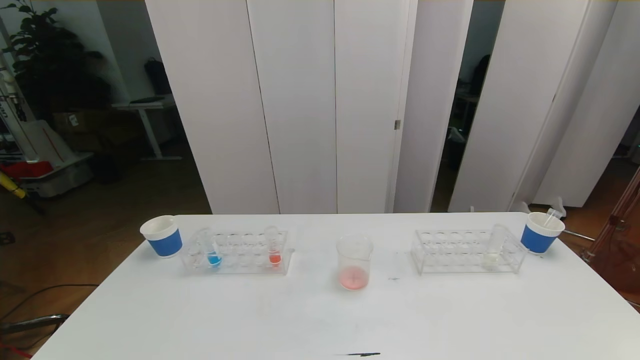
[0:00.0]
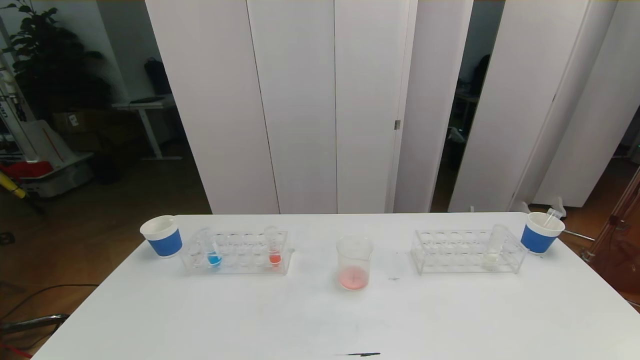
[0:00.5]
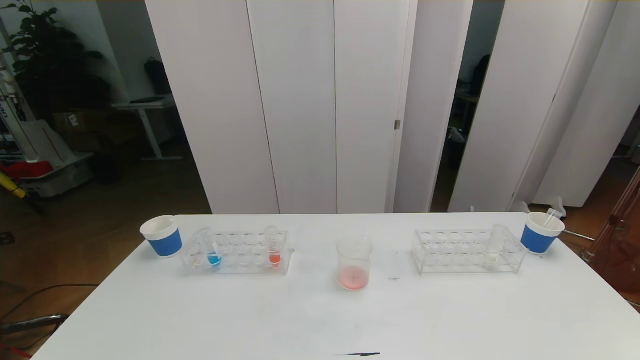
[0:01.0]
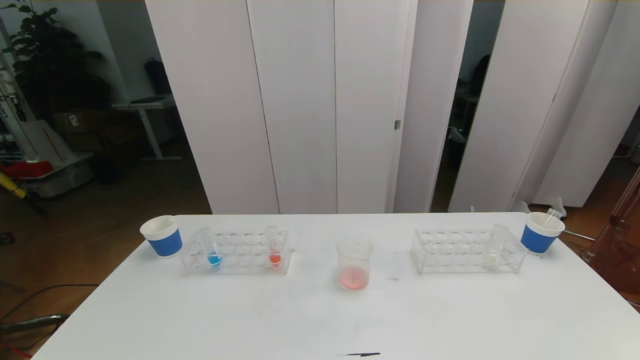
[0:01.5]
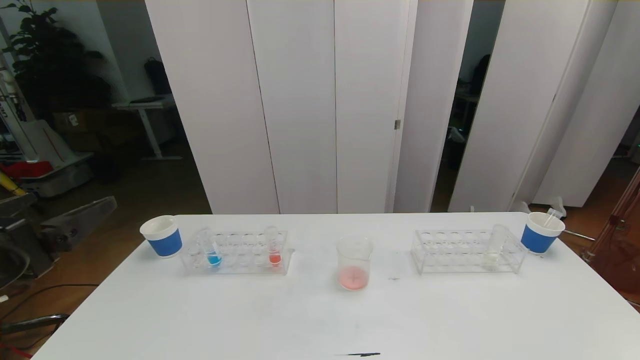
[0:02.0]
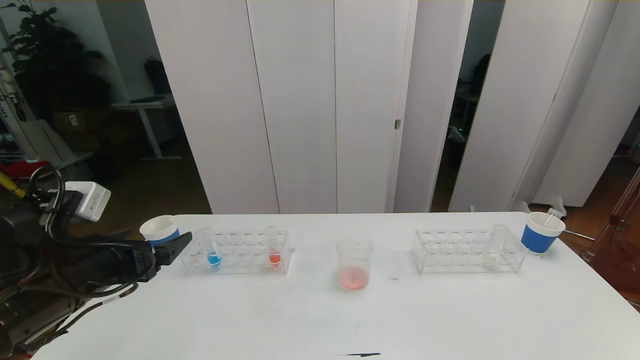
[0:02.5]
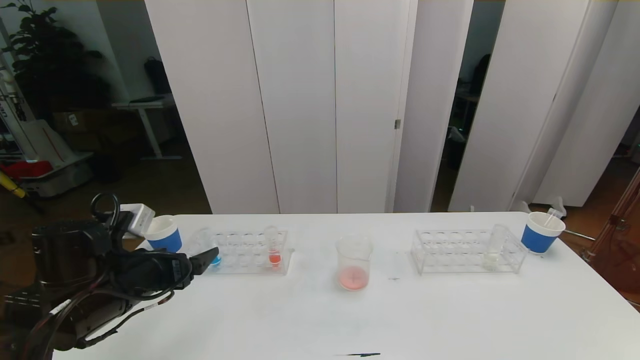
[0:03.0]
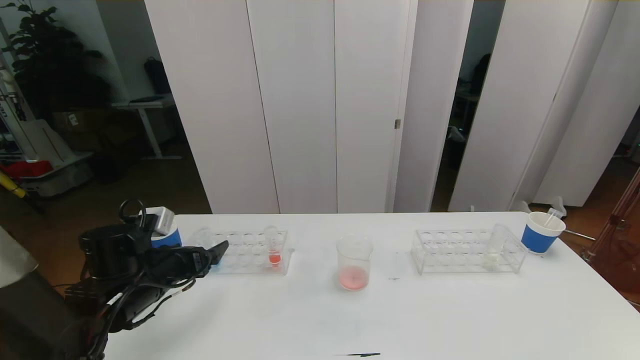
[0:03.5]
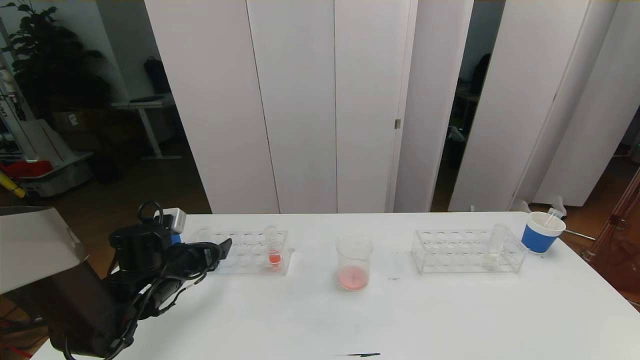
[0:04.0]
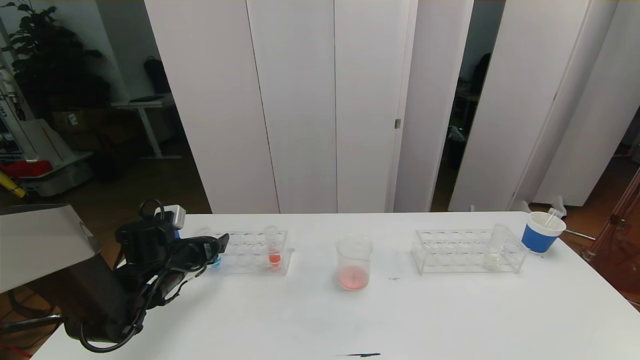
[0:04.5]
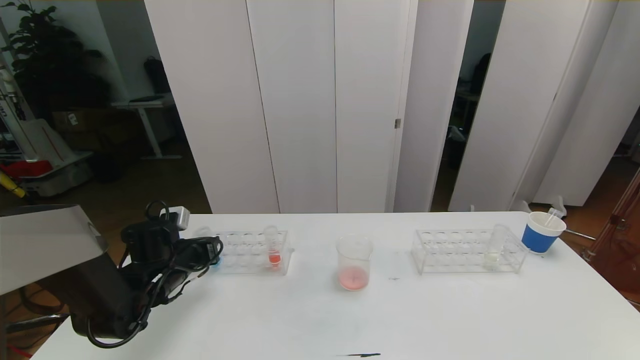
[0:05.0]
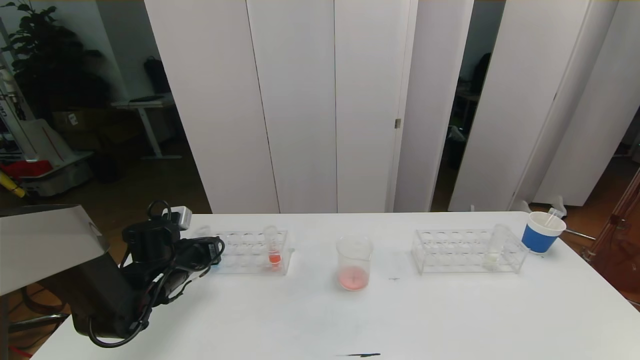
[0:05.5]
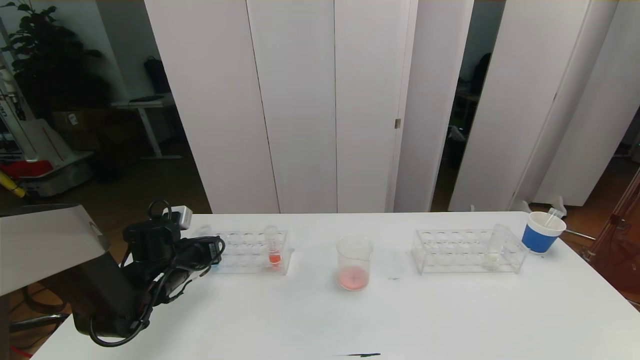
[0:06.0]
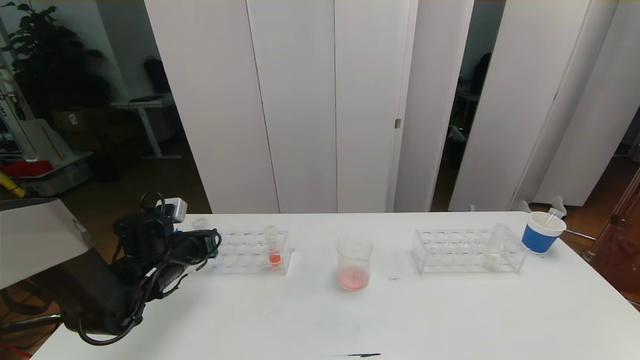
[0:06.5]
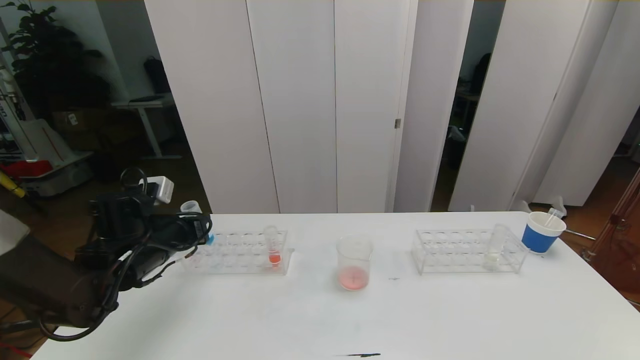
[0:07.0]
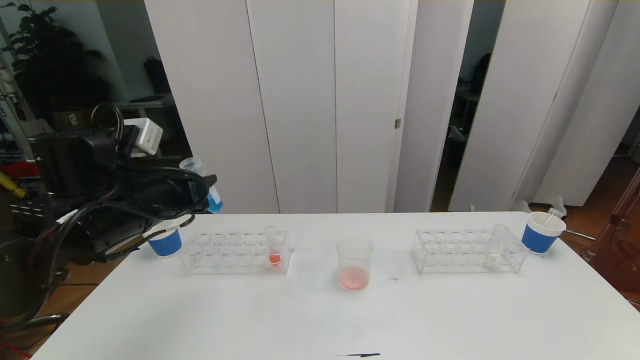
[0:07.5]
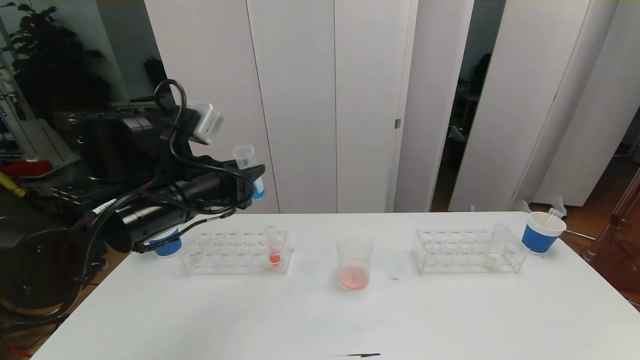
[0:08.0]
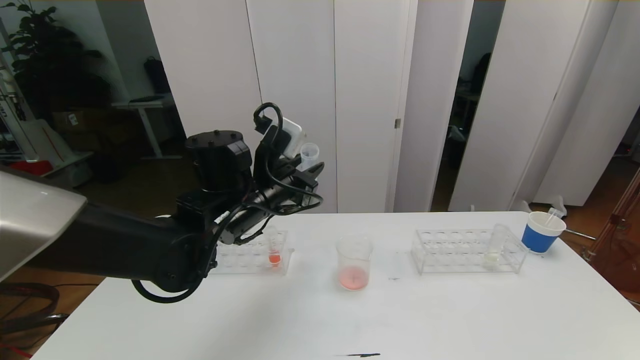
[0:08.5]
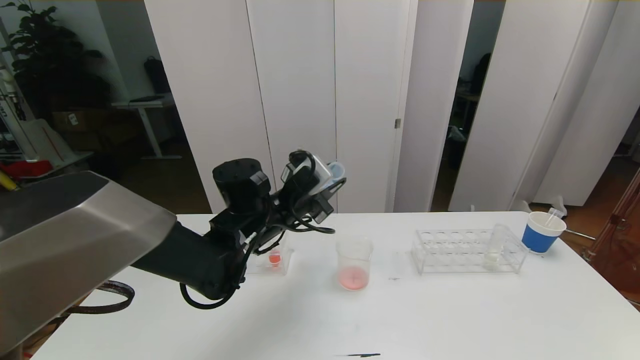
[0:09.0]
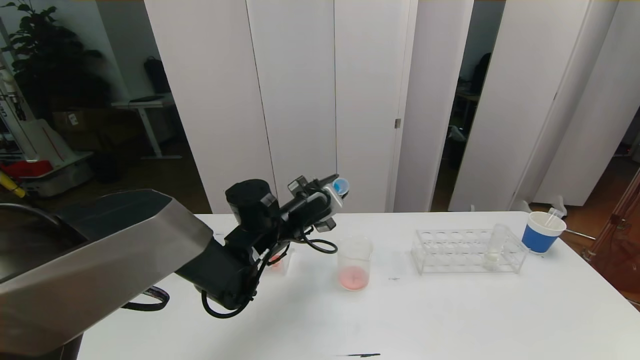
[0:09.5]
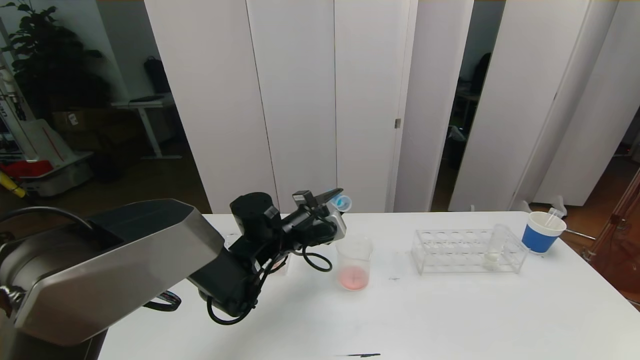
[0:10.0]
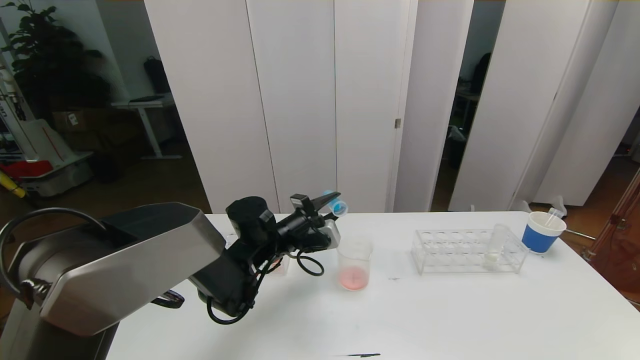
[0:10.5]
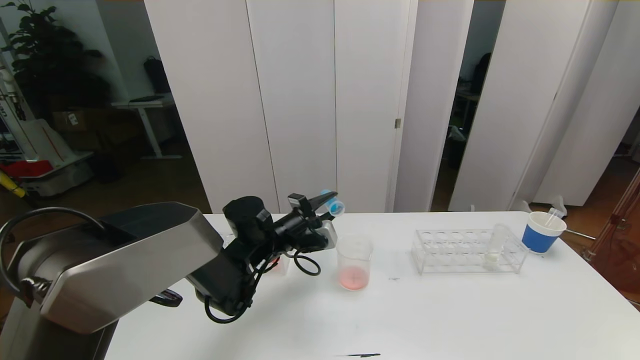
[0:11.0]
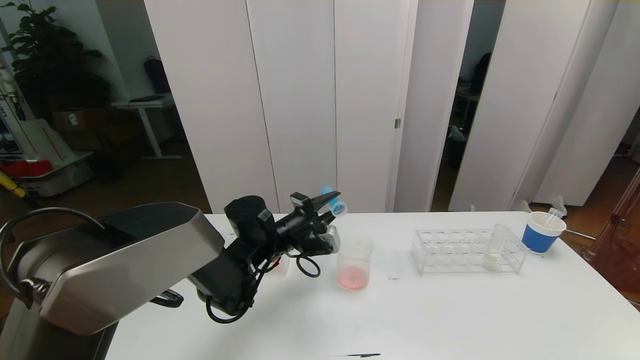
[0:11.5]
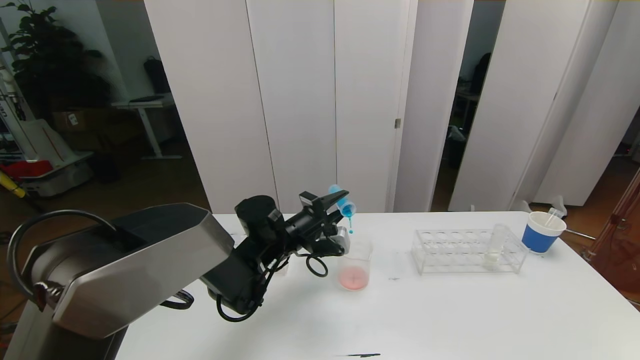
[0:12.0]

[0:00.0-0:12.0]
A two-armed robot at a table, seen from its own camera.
Task of the whole recording: pick up the test tube with red pigment the test tube with blue pigment and the test tube with white pigment by grippers and pour them into the beaker.
0:02.0 to 0:04.0: The left gripper moves downward and forward, roughly 25 cm.
0:04.0 to 0:06.0: The left gripper closes.
0:06.0 to 0:08.0: The left gripper moves upward and to the right, roughly 20 cm.
0:08.0 to 0:10.0: The left gripper heads downward, forward and to the right, covering approximately 20 cm.
0:10.0 to 0:12.0: The grippers move only a little.

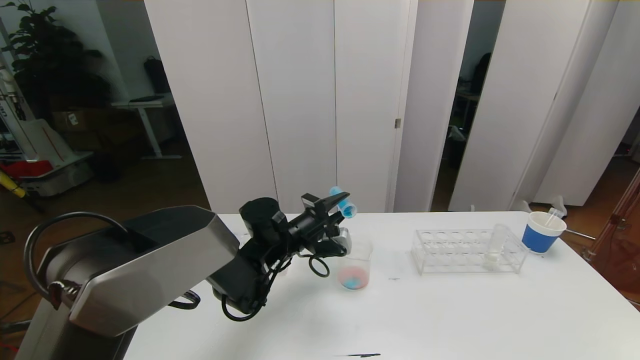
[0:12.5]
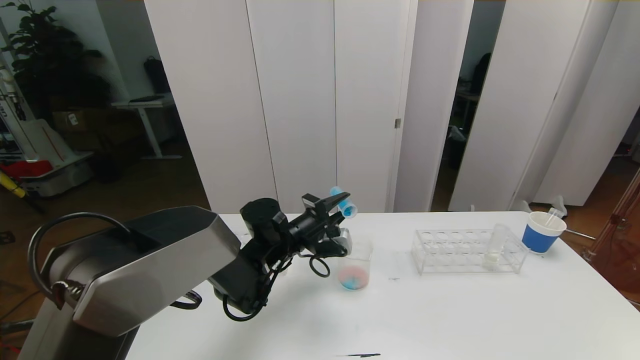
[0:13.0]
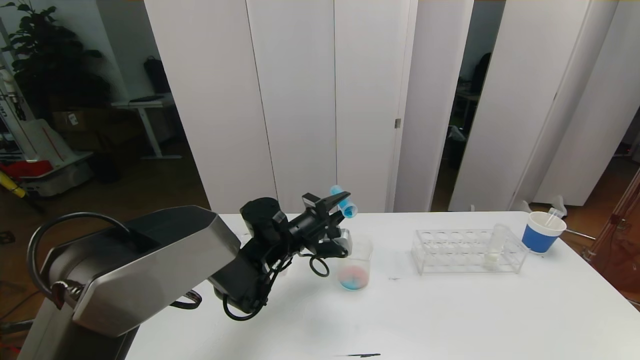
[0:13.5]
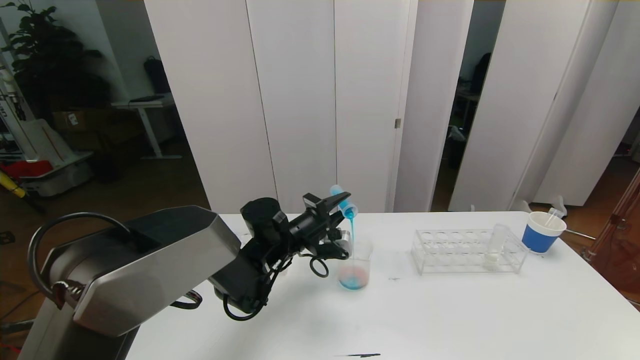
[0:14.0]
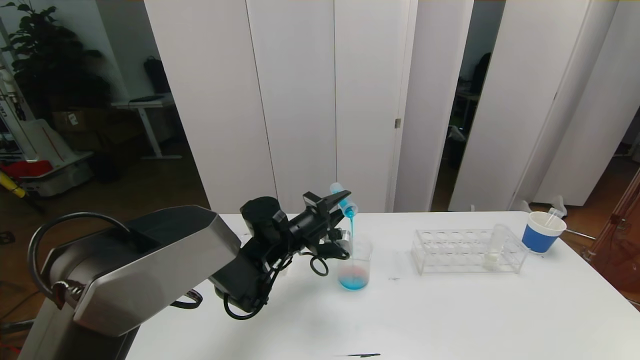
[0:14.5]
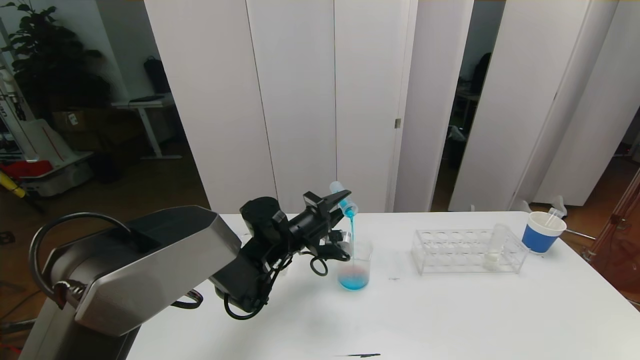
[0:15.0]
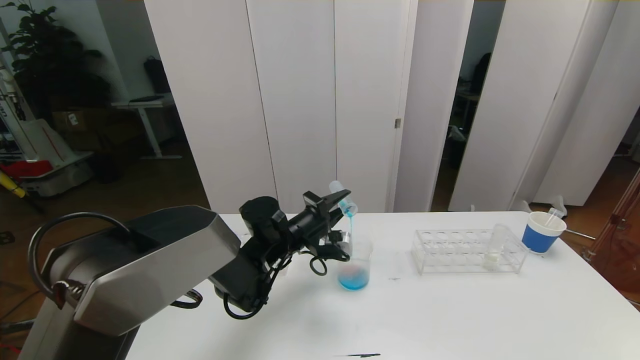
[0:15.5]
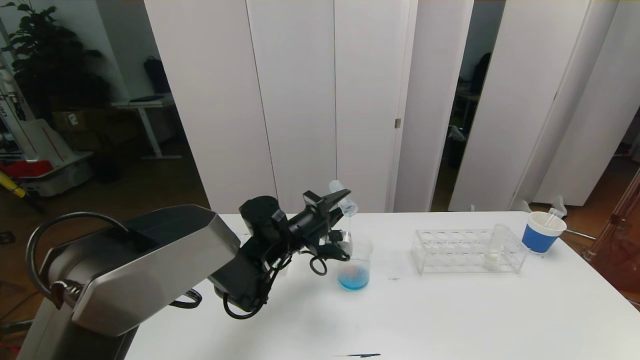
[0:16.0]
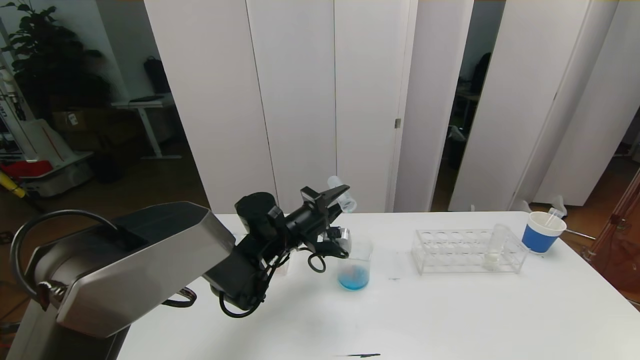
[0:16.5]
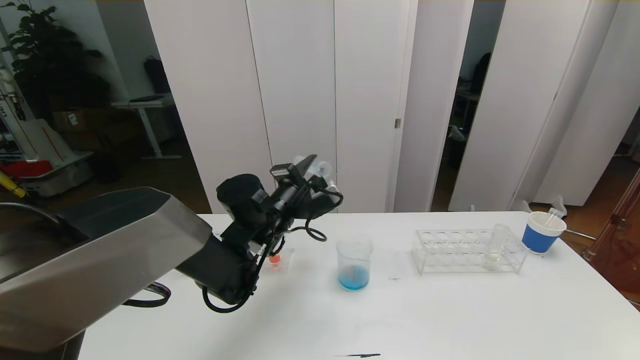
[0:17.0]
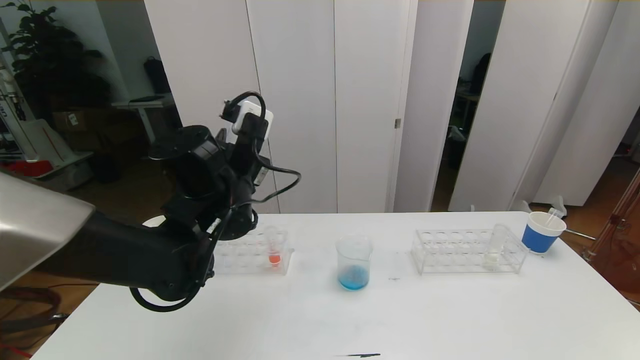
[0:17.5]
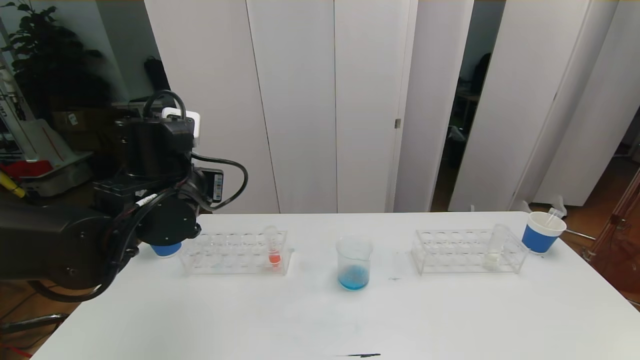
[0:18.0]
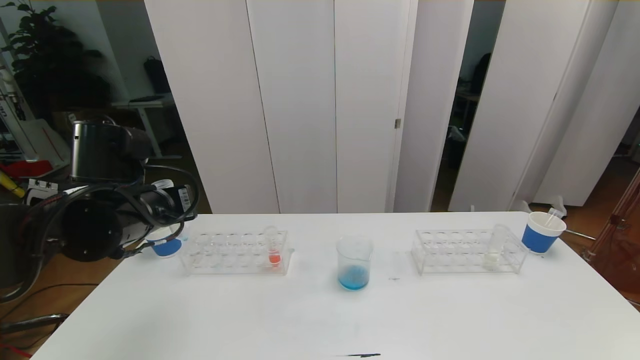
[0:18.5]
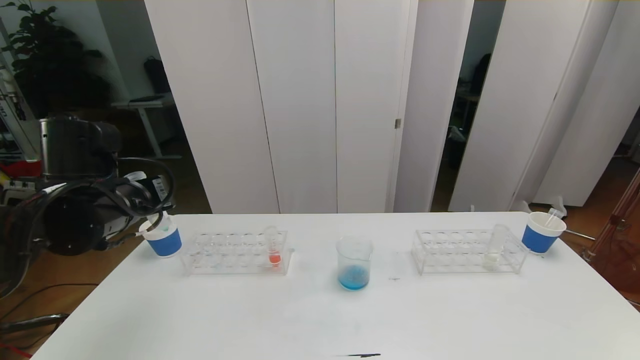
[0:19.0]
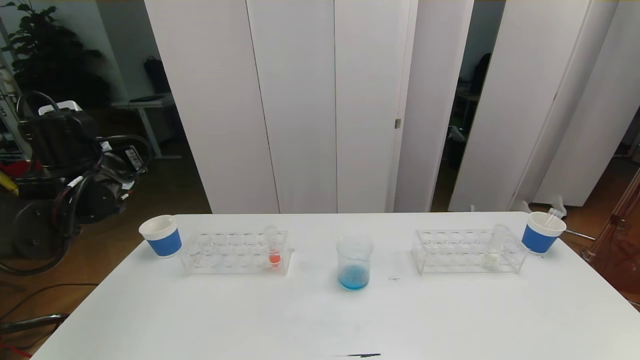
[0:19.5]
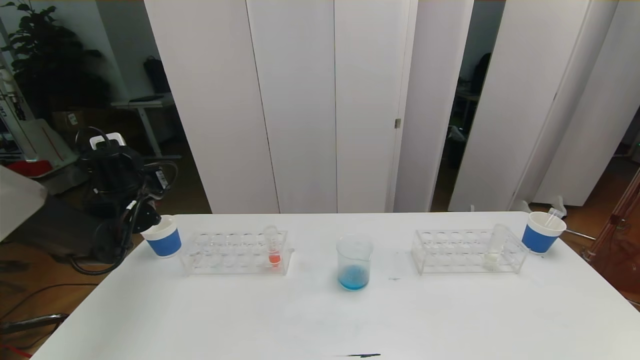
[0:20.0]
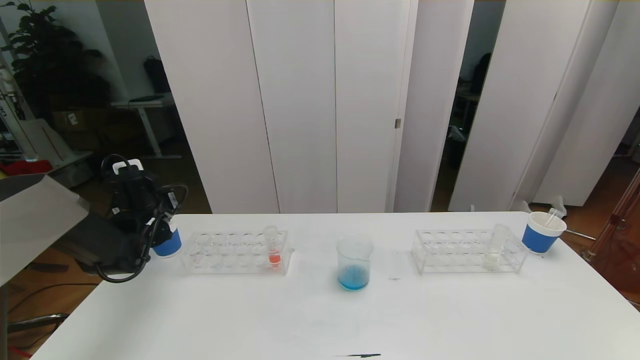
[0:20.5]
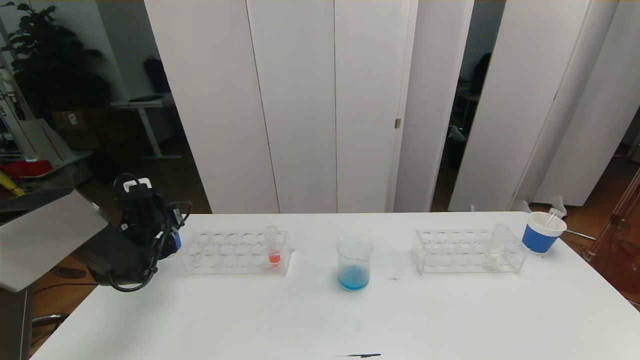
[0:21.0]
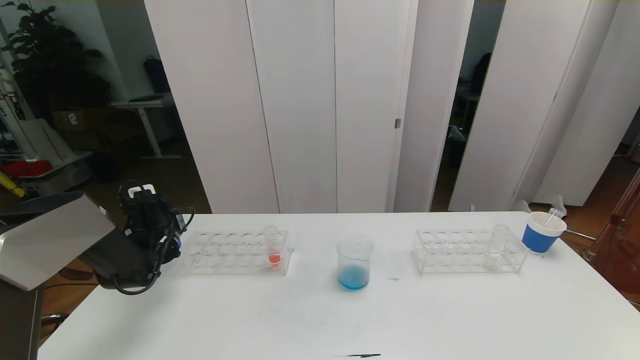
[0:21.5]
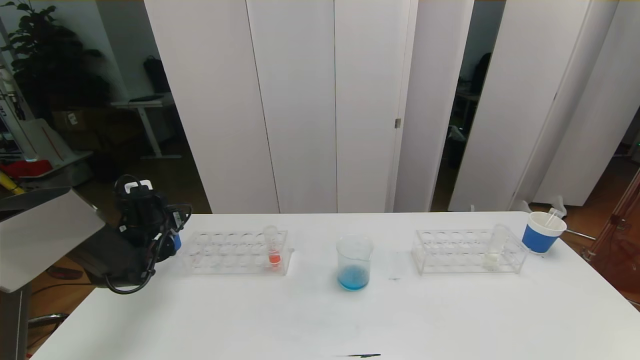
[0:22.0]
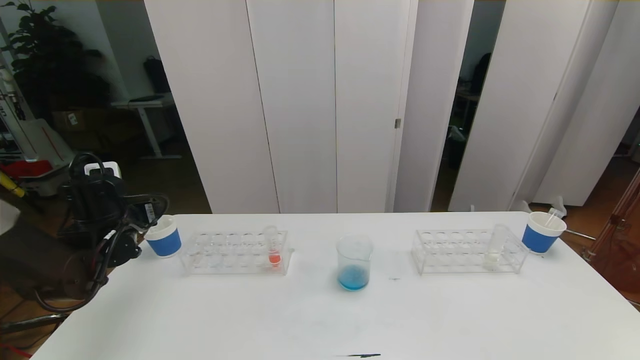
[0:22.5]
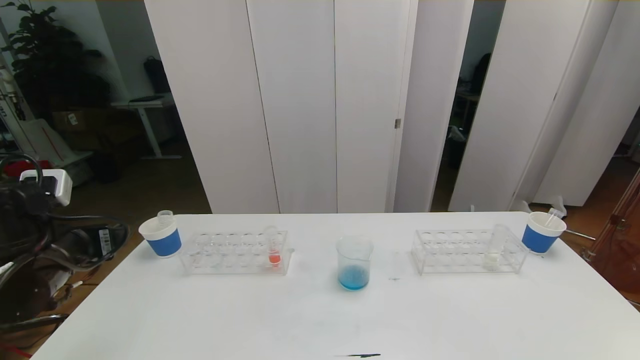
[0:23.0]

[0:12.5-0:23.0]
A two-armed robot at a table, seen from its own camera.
Task of the whole recording: pick up the test tube with red pigment the test tube with blue pigment and the test tube with white pigment by grippers and pour them into the beaker.
0:12.5 to 0:14.5: The grippers make only small movements.
0:14.5 to 0:16.5: The two grippers keep their place.
0:16.5 to 0:19.0: The left gripper goes roughly 25 cm to the left, upward and backward.
0:19.0 to 0:21.0: The left gripper travels downward, forward and to the left by approximately 25 cm.
0:21.0 to 0:23.0: The left gripper heads backward and upward, covering about 25 cm, and opens its fingers.
